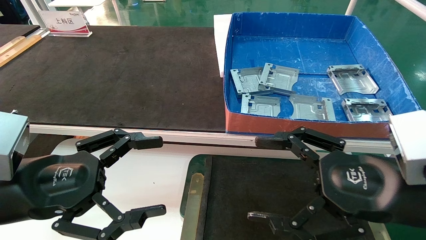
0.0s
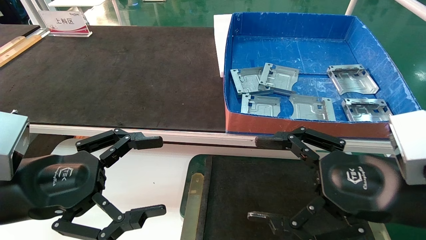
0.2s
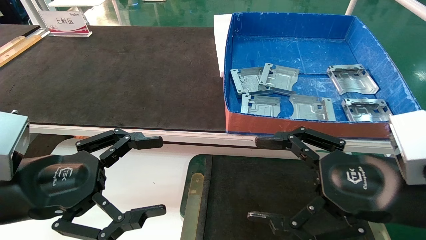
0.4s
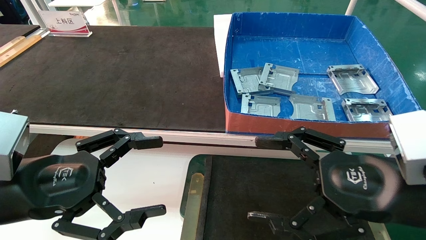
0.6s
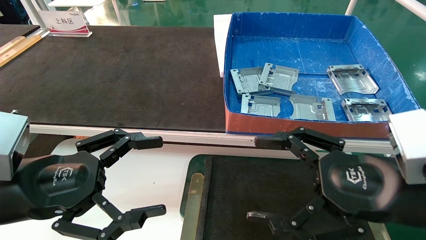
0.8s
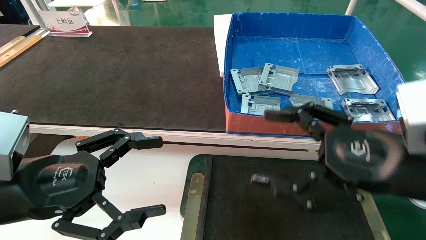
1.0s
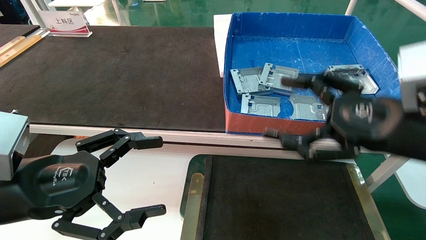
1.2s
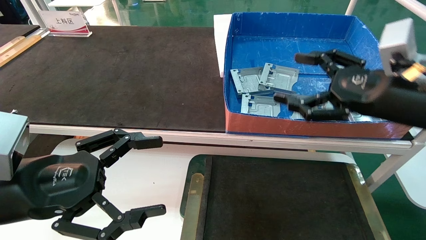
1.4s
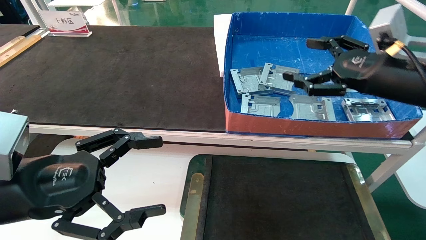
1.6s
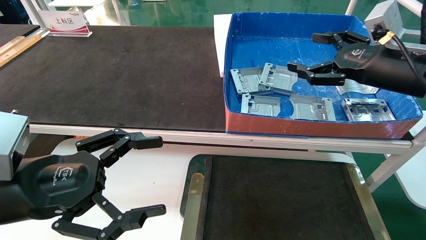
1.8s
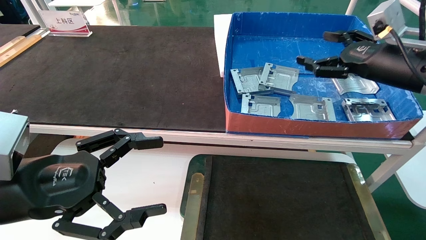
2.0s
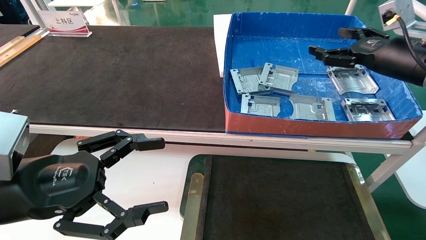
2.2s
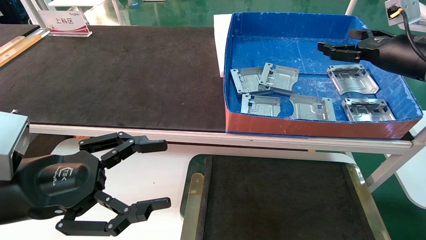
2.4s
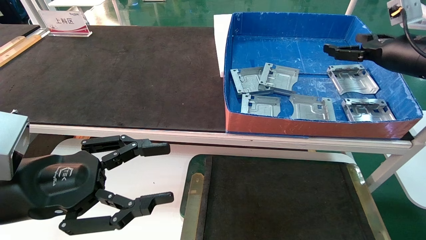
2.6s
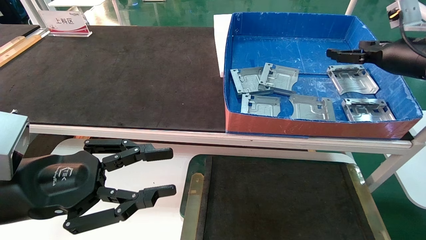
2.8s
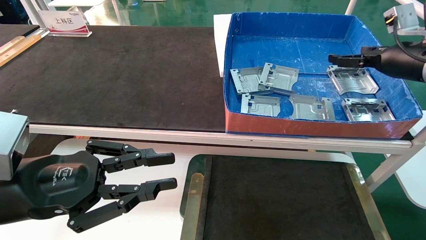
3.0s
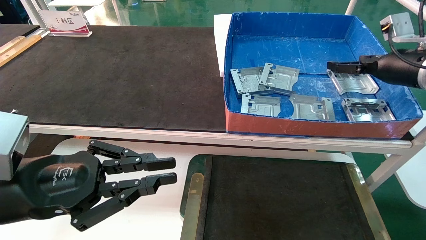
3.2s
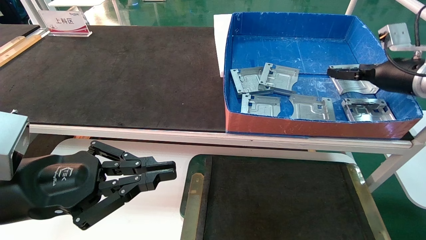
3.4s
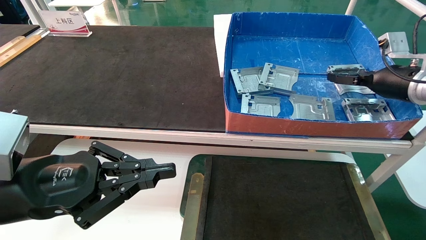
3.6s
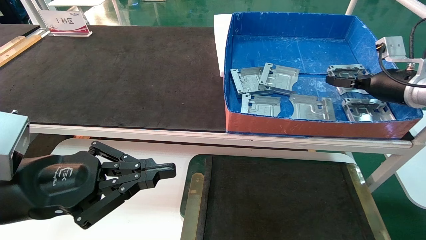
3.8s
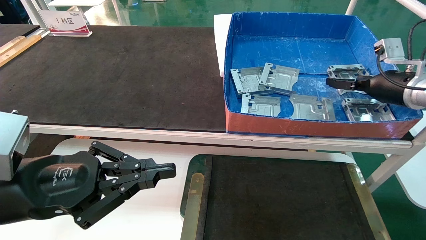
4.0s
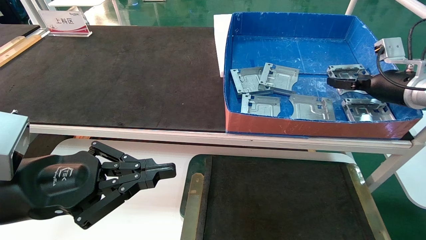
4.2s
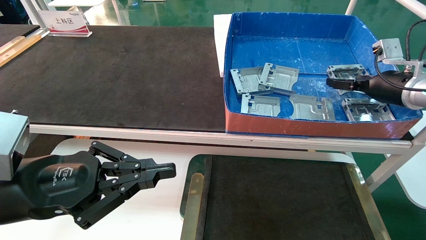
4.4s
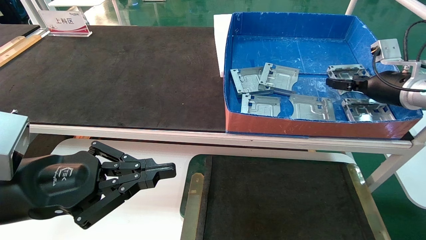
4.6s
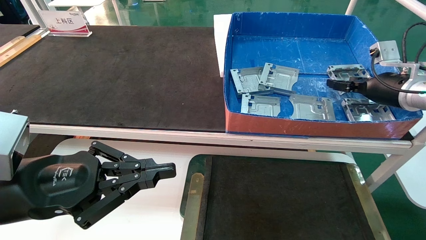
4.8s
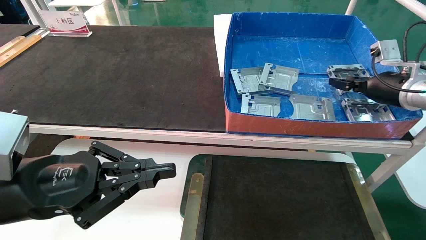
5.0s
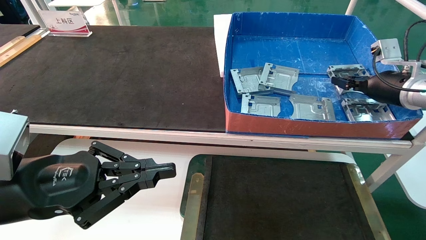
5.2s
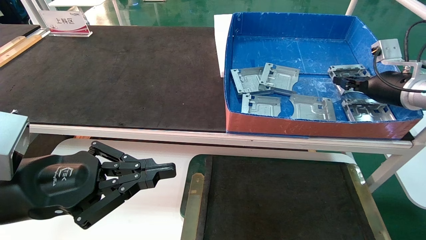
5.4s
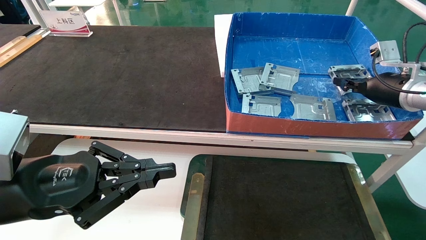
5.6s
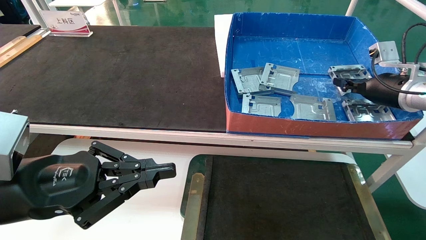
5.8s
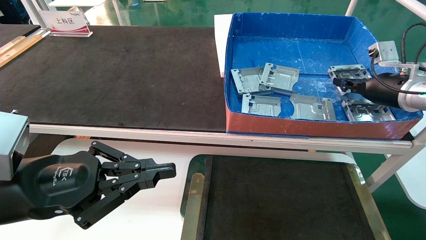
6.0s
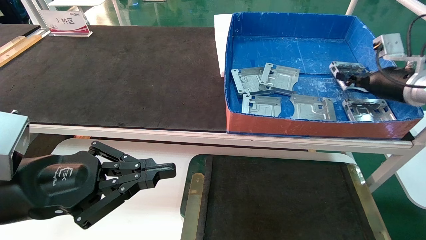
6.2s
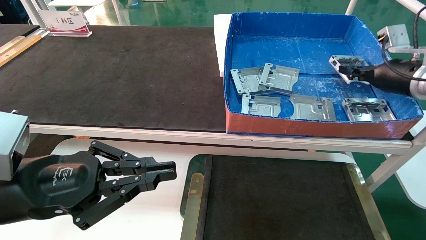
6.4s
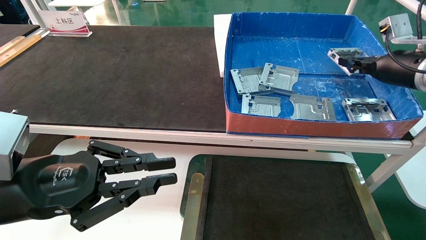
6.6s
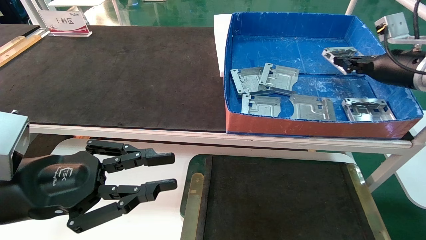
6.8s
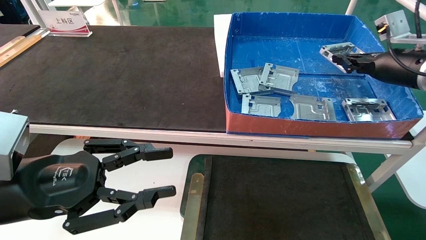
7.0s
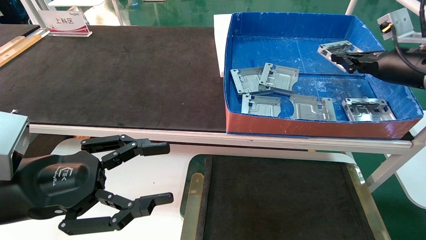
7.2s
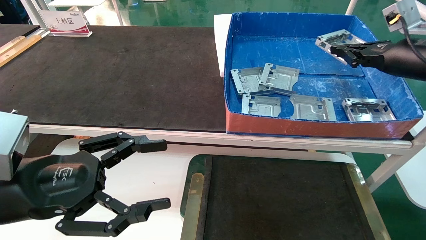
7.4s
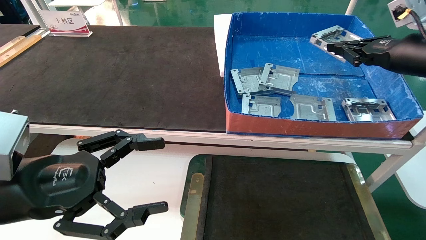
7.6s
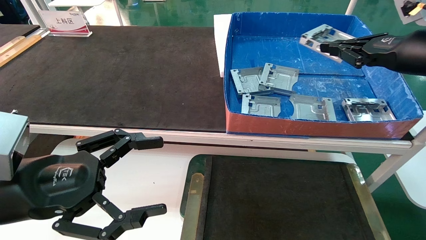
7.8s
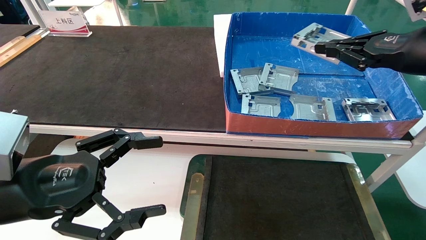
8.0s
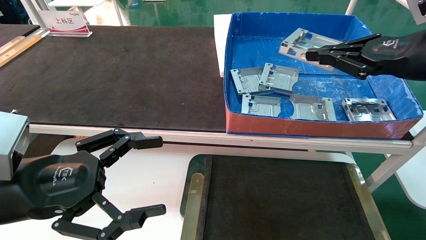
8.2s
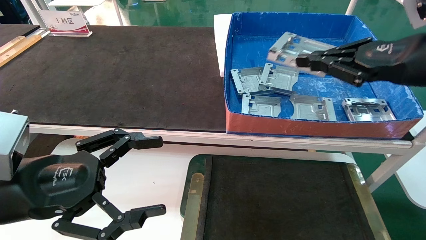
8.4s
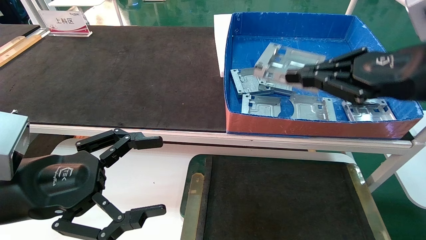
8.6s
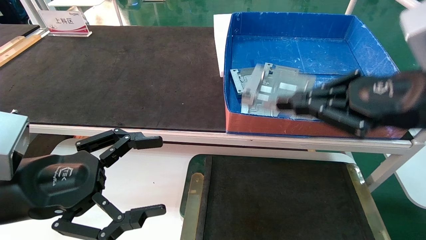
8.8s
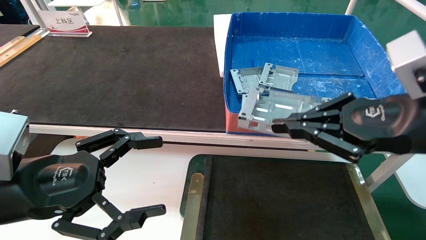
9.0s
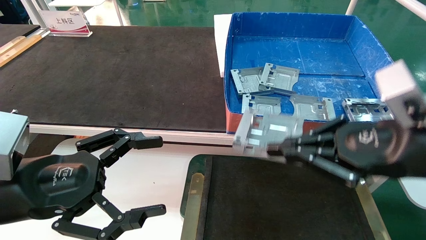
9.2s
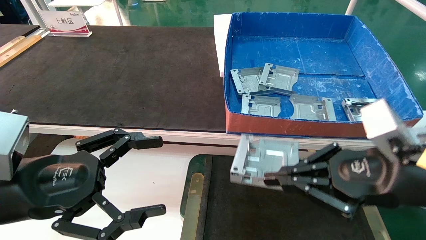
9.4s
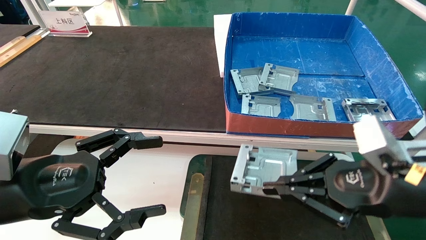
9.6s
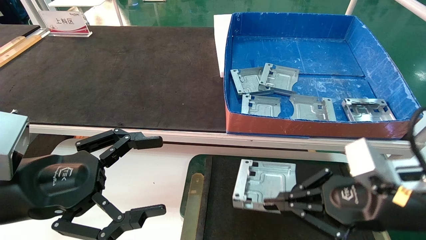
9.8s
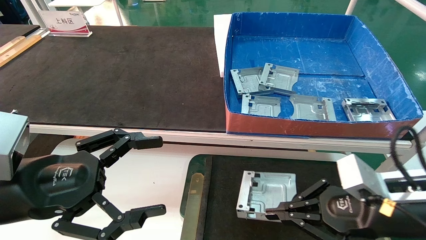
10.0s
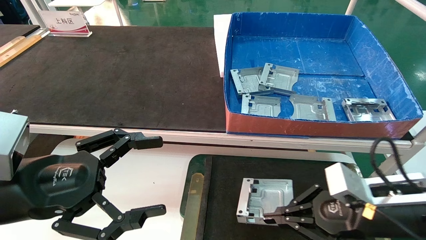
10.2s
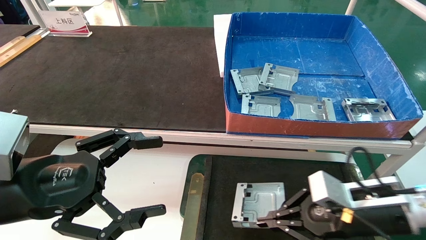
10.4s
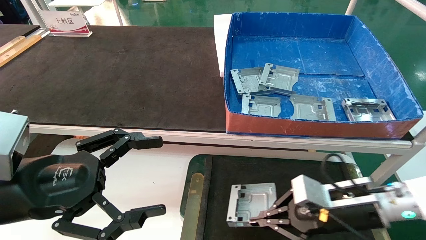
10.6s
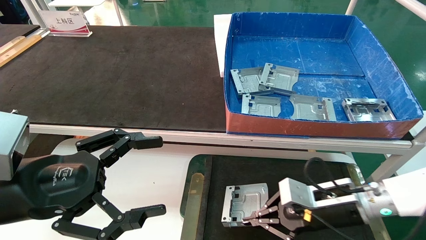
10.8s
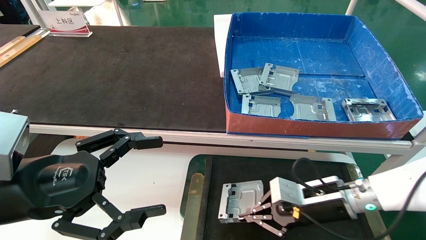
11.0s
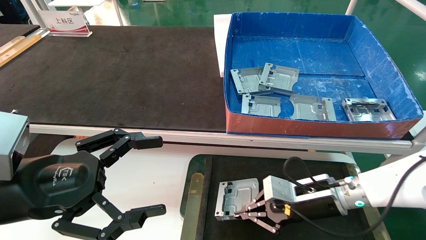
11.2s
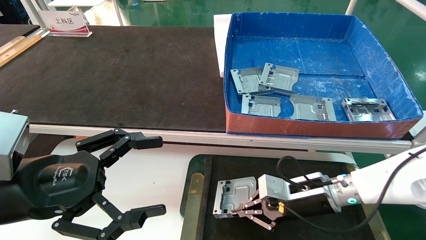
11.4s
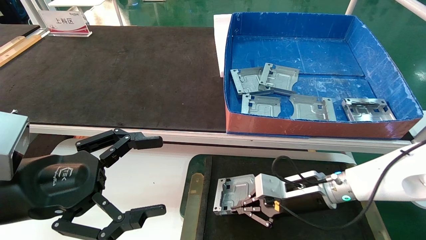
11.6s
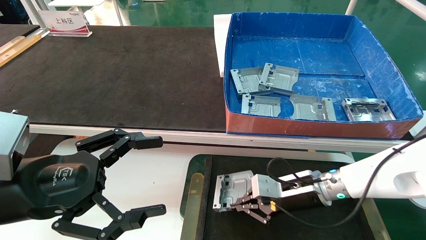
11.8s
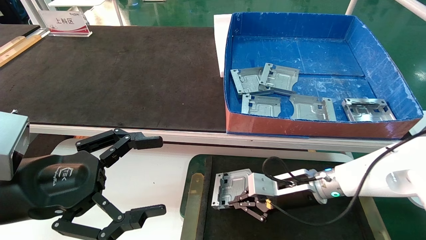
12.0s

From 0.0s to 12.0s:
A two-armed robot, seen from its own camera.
Task of the whole recording: pick up parts and place them into a black container.
Step, from 1.4s to 5.6s: Pick up the hard drive bracket from the feeding area.
From 0.0s to 1.6s: The right gripper travels forward, upward and to the right by some 15 cm.
From 1.6s to 3.0s: The left gripper closes its fingers; the right gripper moves forward and to the right, roughly 10 cm.
From 3.0s to 4.4s: The right gripper travels downward by about 5 cm. The left gripper closes up.
From 4.4s to 6.0s: The right gripper closes up.
From 6.0s to 7.6s: The left gripper opens up; the right gripper is displaced backward and upward by approximately 10 cm.
From 7.6s to 9.0s: The right gripper shifts about 20 cm backward and to the left.
From 9.0s to 10.4s: The right gripper moves downward, about 15 cm.
From 10.4s to 12.0s: The right gripper moves forward and to the left, roughly 15 cm.

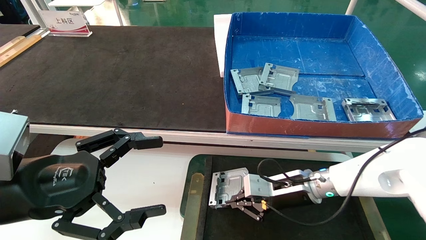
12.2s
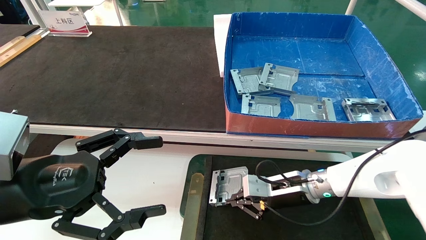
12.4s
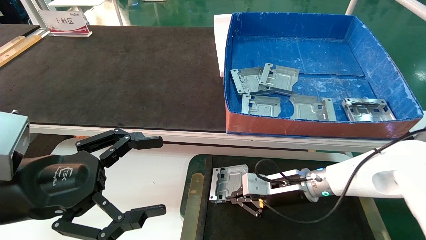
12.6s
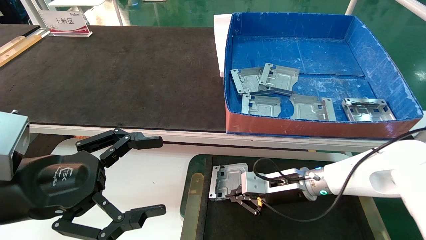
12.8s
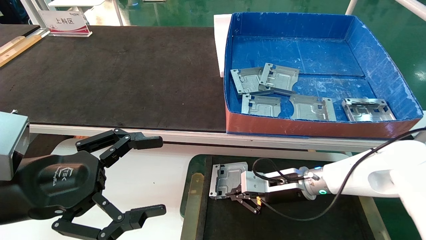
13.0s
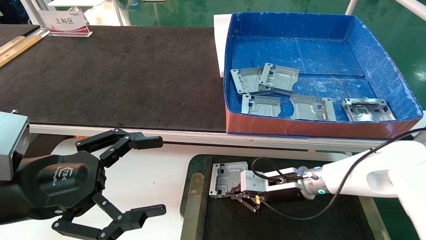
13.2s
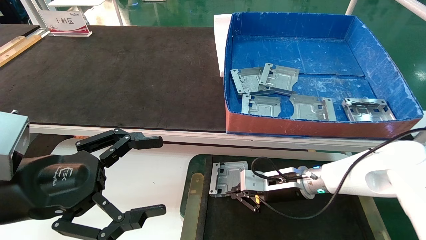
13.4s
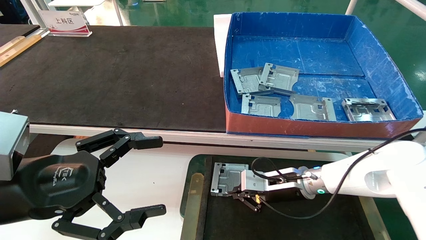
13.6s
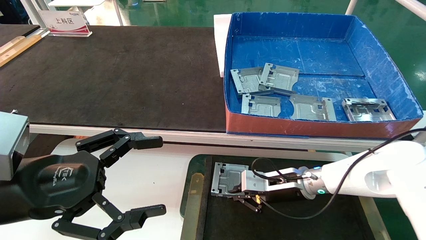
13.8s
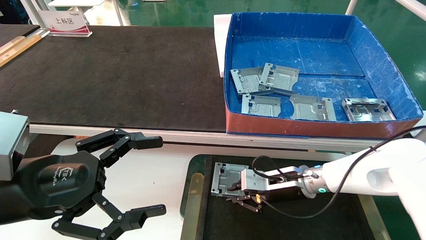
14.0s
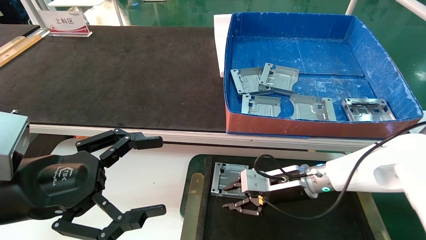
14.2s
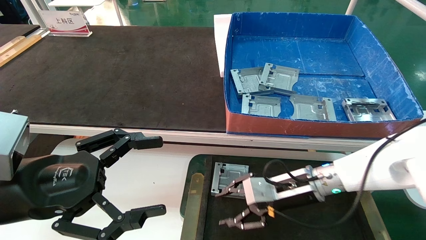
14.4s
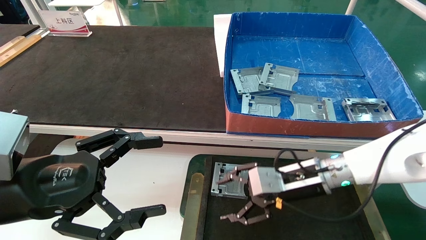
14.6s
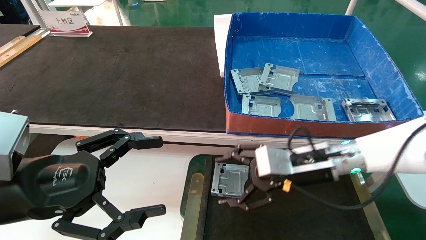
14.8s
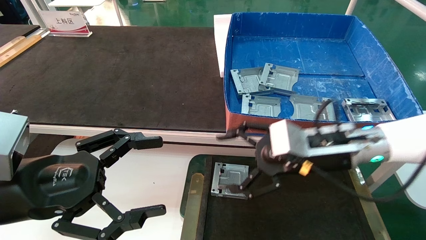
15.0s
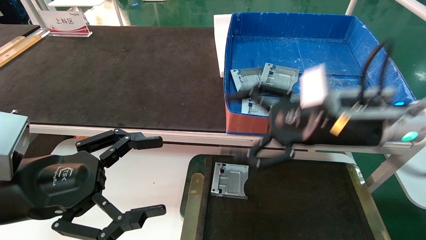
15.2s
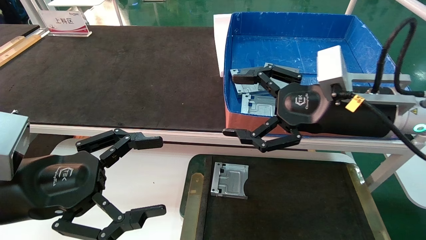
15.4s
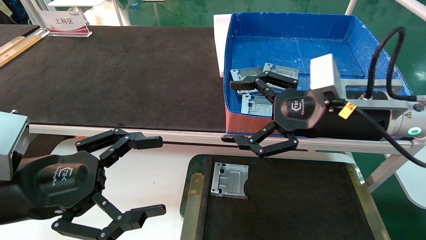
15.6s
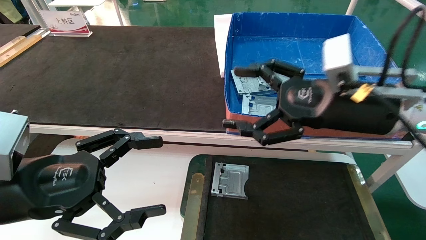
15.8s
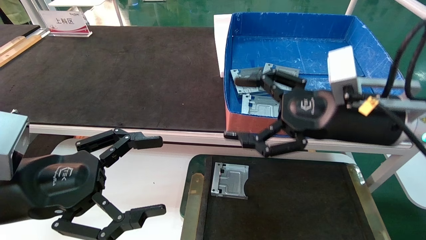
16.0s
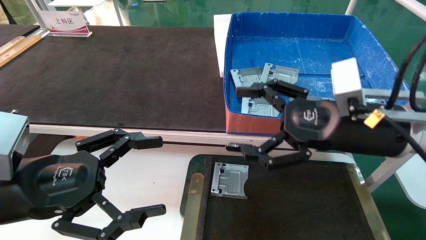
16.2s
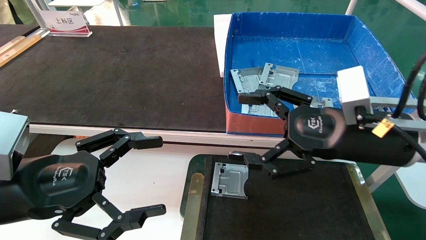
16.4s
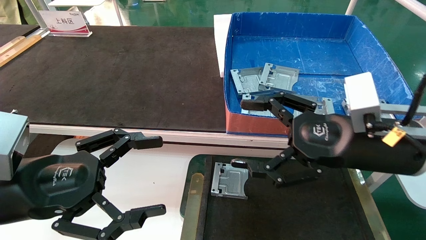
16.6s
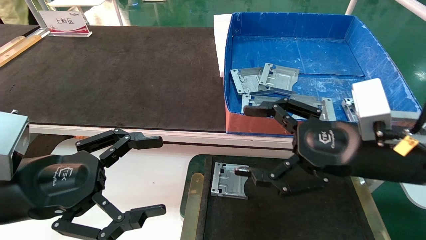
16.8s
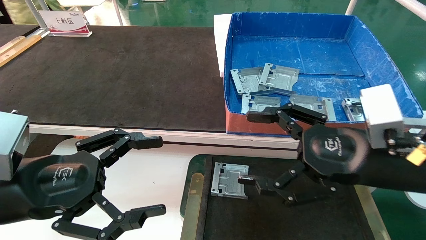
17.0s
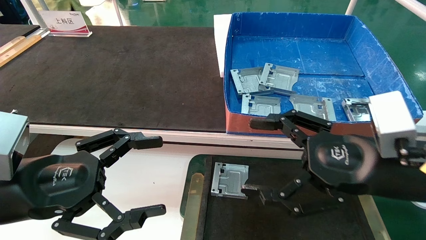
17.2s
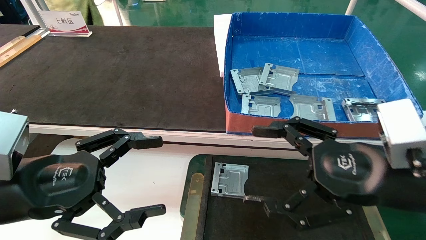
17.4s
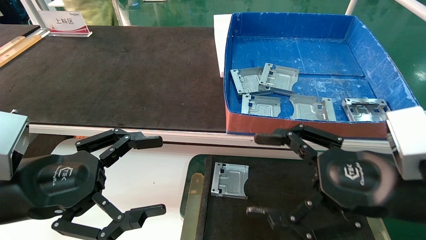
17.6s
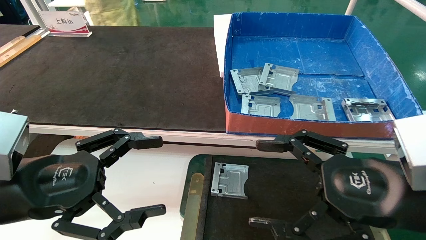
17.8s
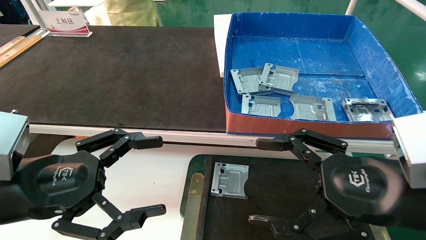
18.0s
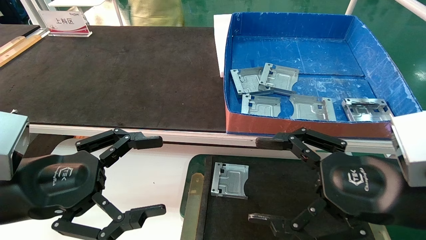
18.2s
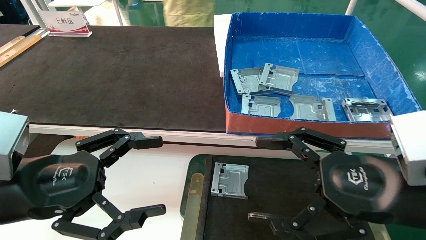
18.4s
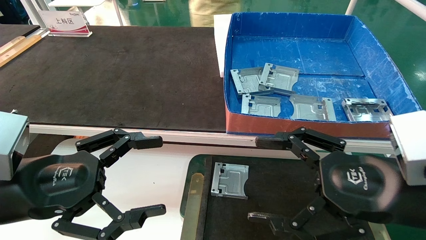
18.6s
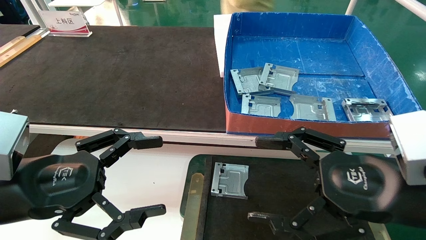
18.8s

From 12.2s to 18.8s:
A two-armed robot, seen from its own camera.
Task of the whole recording: pick up parts and place them into a black container.
From 12.2s to 13.8s: There are only small adjustments of the grippers.
From 13.8s to 15.4s: The right gripper heads upward and backward, covering about 25 cm, and opens its fingers.
From 15.4s to 17.2s: The right gripper is displaced backward by roughly 10 cm.
From 17.2s to 18.8s: The grippers move only a little.
